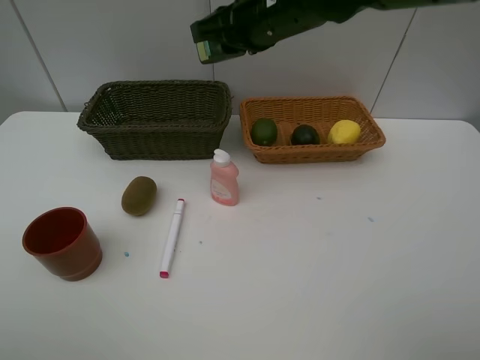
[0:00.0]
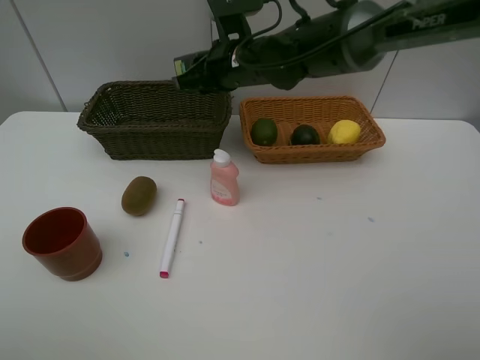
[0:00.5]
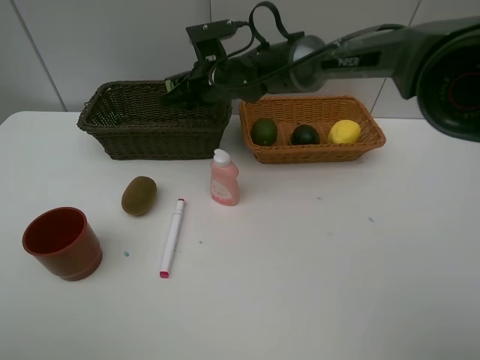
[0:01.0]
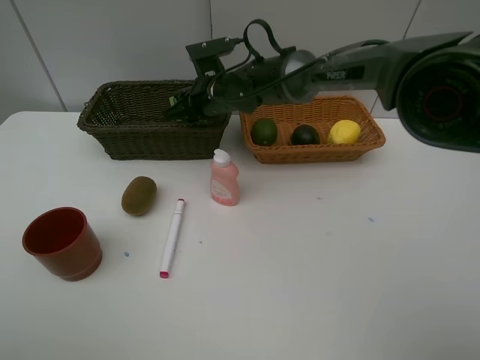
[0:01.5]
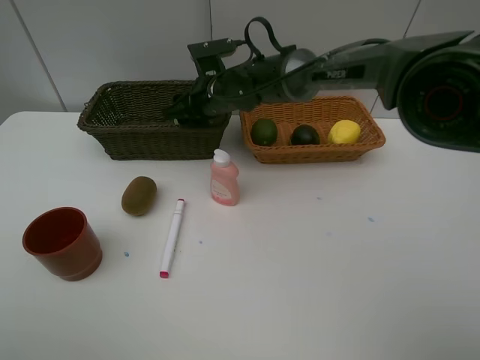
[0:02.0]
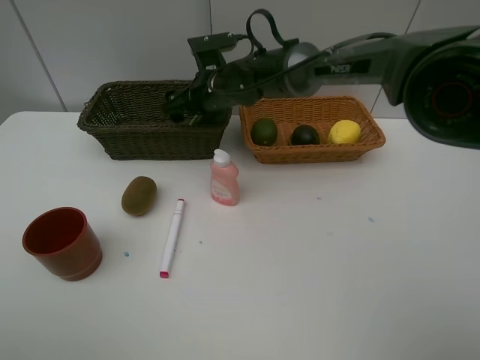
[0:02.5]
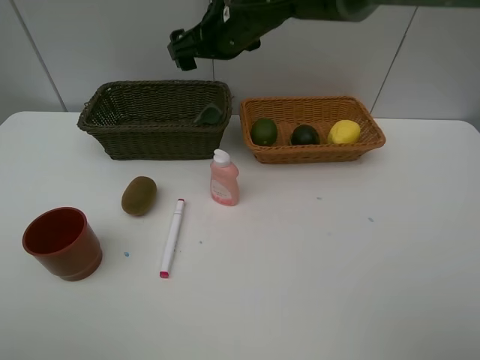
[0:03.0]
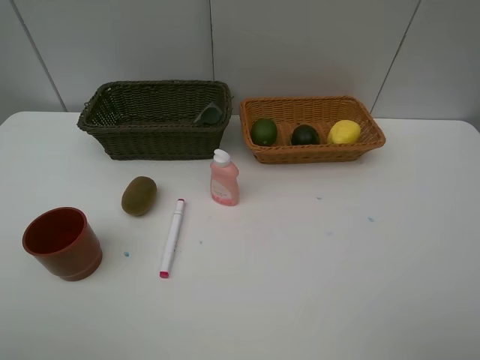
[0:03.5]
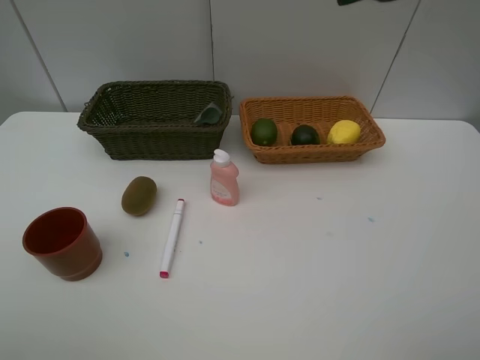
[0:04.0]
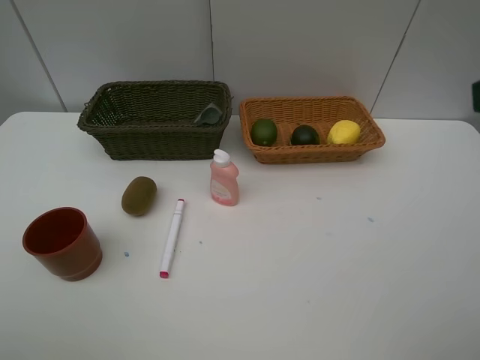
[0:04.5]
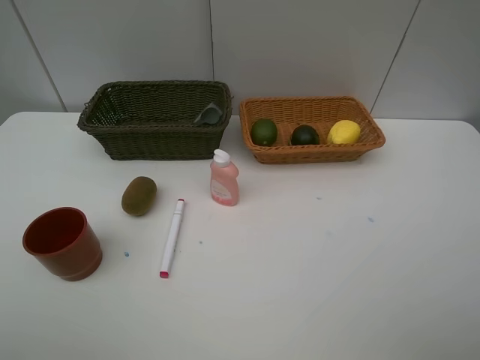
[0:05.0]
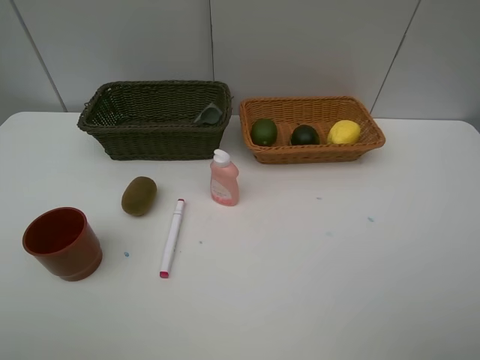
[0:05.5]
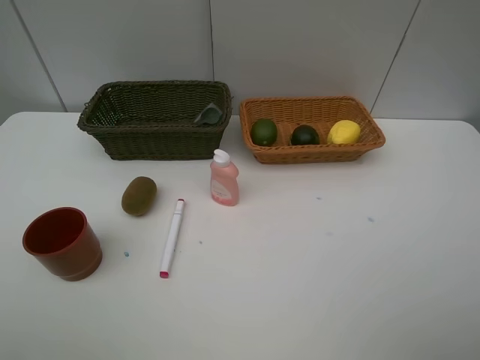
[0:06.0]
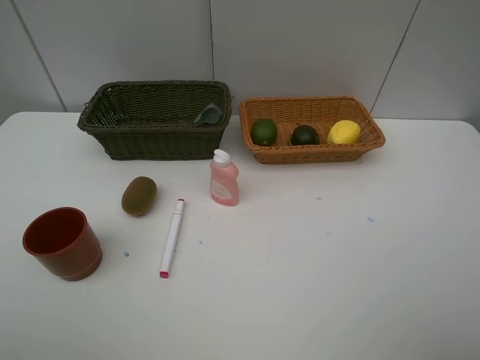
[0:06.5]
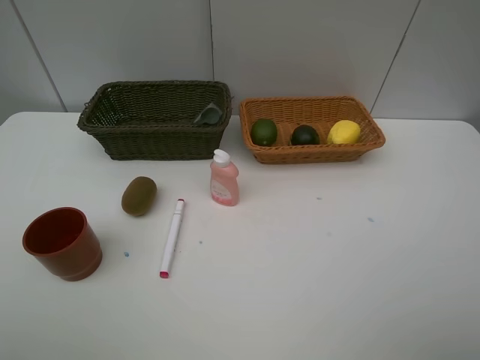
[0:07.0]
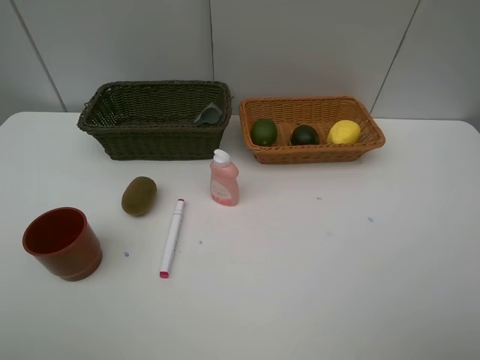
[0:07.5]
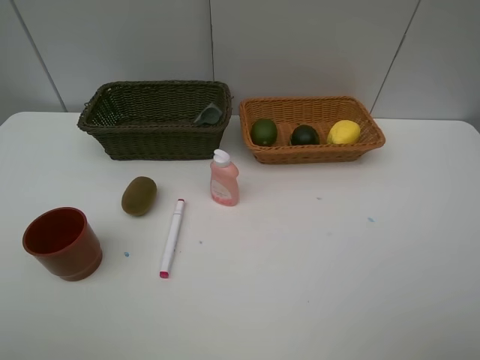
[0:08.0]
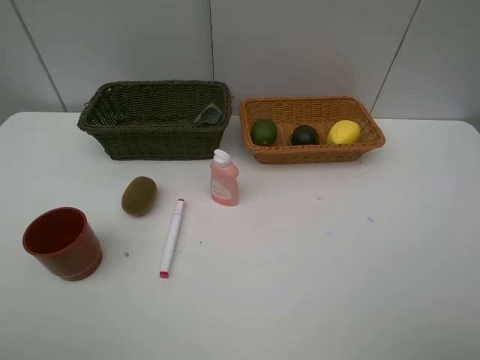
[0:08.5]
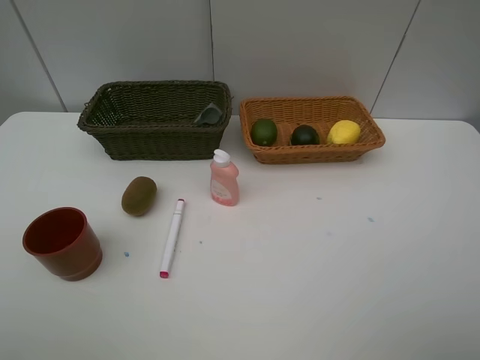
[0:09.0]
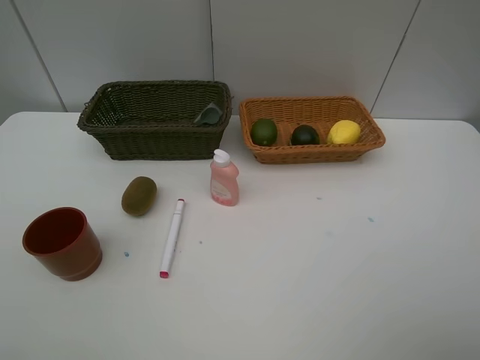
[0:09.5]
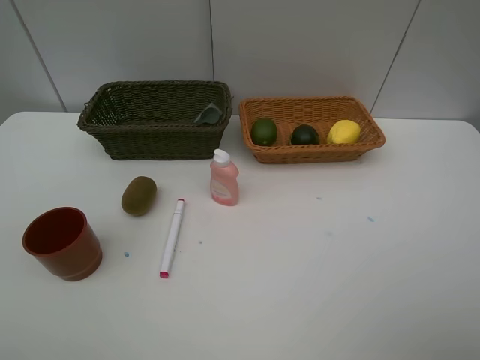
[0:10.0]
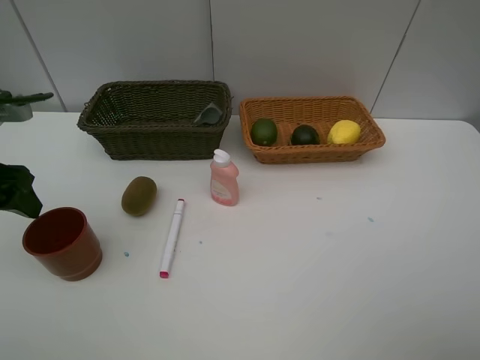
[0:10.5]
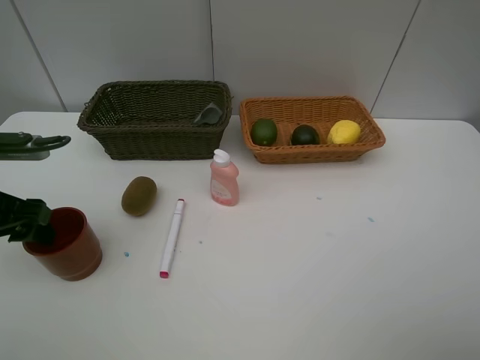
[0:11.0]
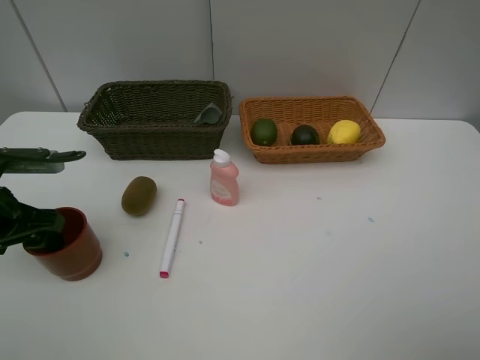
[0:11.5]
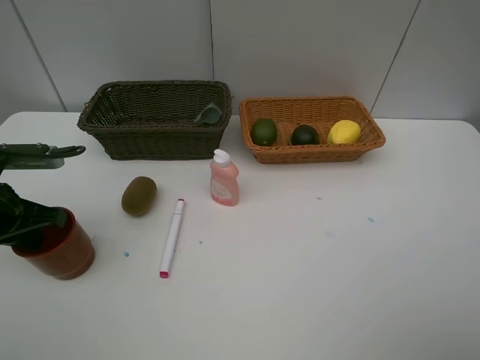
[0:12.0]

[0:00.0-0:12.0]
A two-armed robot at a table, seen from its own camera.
Task of the whole recording: Place multiple objects separately in different baskets.
Step, 0:00.0 to 0:02.5: Place the hard facial cleanser in the dark basket with right gripper.
0:00.0 to 0:02.0: The right gripper moves downward, forward and to the left, roughly 15 cm, and opens up.
0:02.0 to 0:04.0: The right gripper moves upward, backward and to the right, some 40 cm.
0:10.0 to 0:12.0: The left gripper travels downward by approximately 15 cm, and closes up.

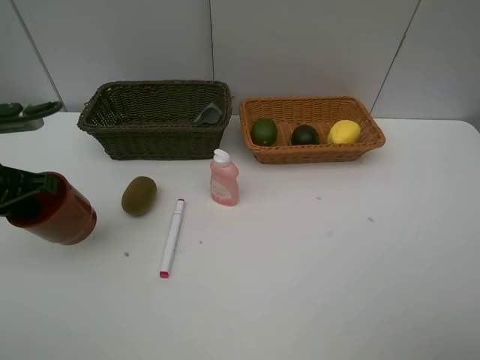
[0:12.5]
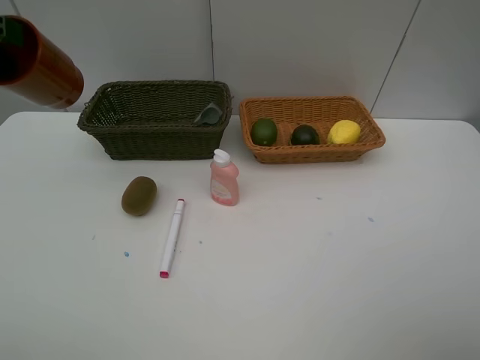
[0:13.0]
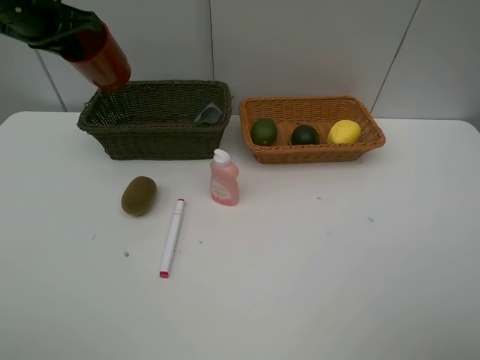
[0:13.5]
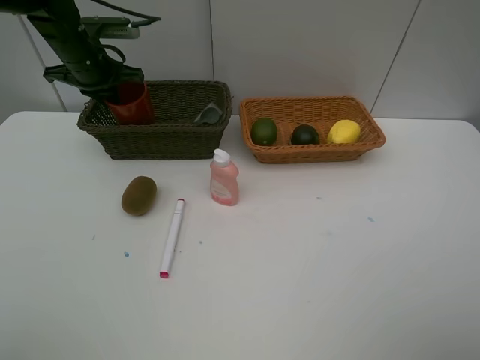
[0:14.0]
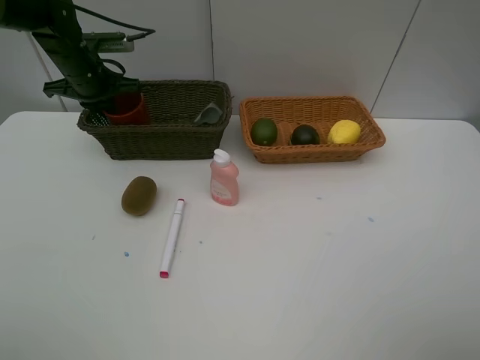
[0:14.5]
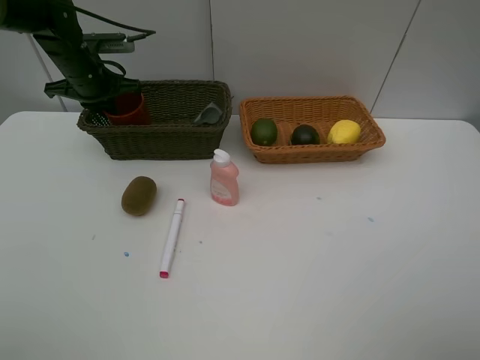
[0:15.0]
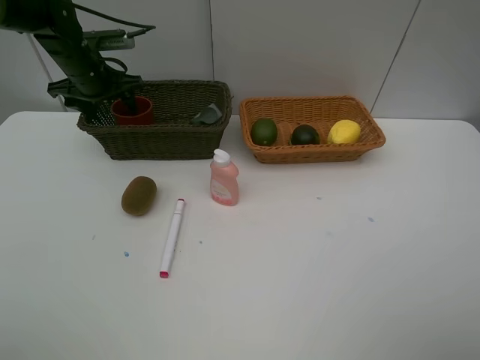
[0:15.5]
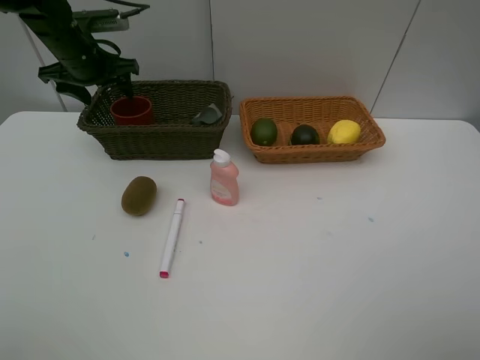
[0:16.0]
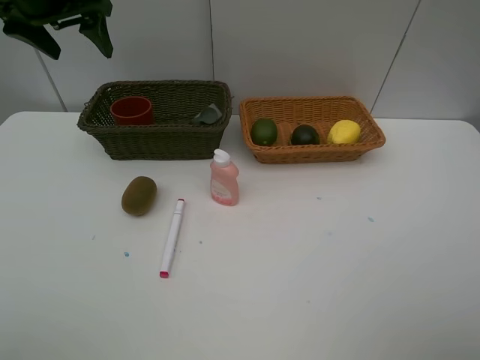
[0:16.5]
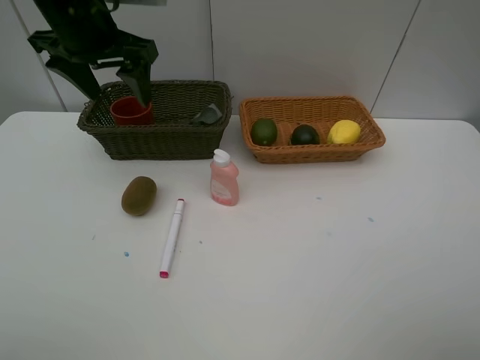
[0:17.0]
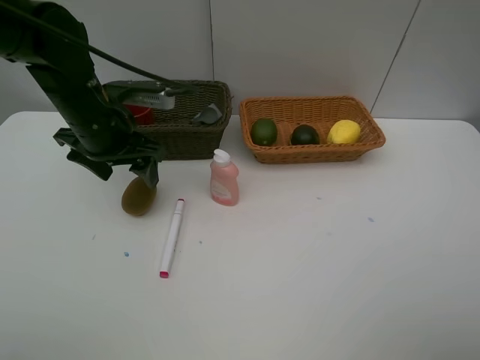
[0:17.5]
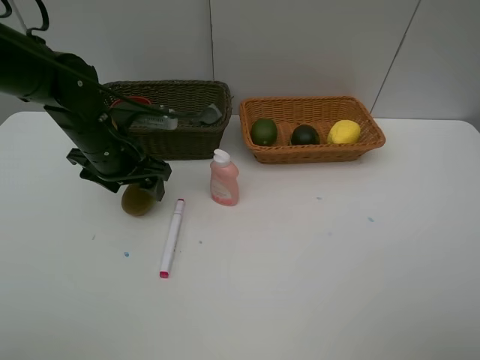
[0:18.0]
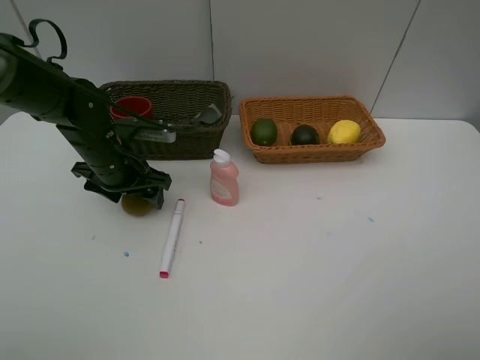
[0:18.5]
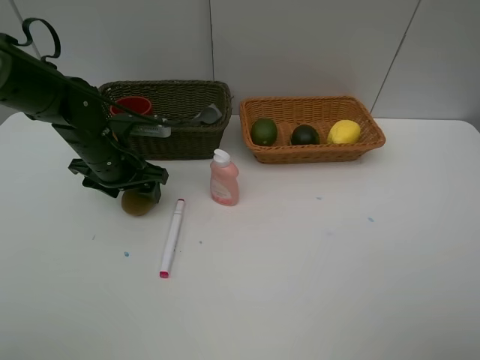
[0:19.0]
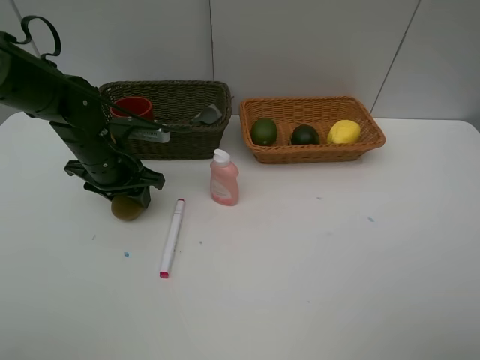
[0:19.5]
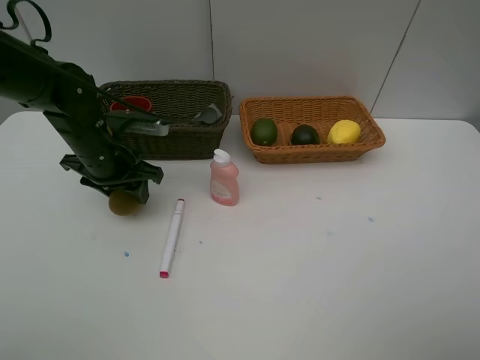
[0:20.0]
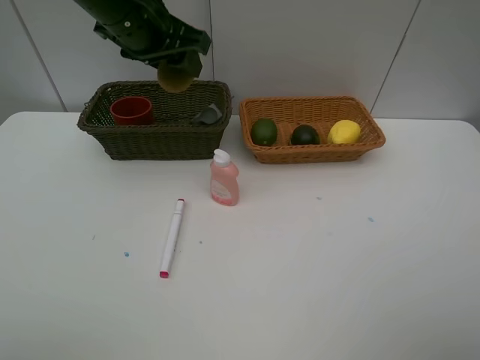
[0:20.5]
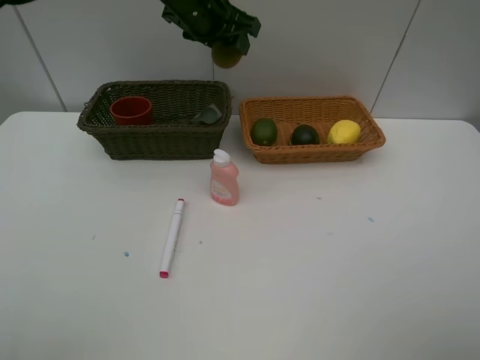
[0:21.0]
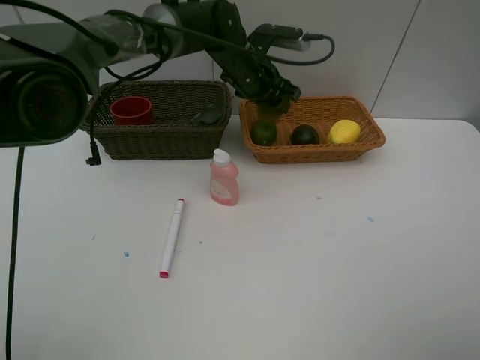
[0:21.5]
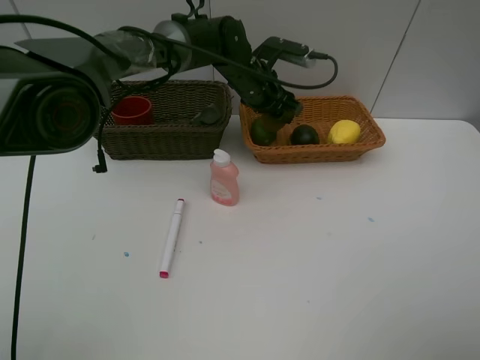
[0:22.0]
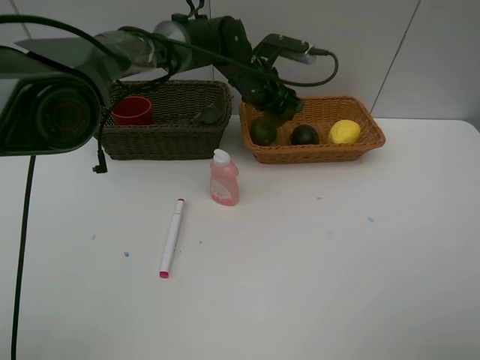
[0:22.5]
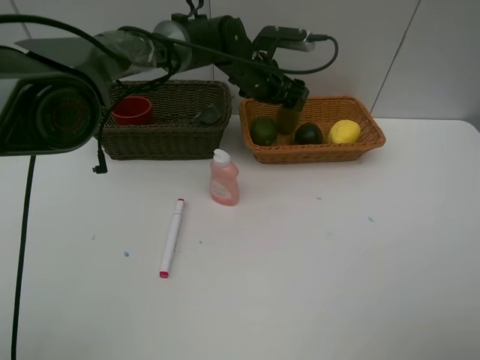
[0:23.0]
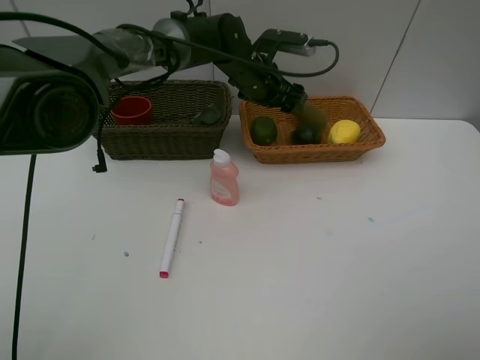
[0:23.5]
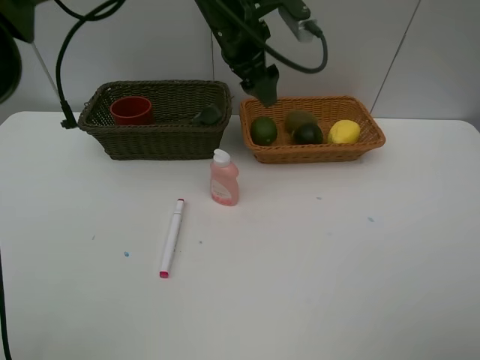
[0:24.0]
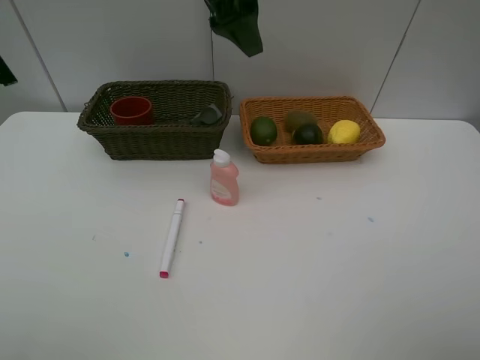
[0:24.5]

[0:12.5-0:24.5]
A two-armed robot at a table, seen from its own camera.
Task of the whole recording: Place multiple objects separately in different baskets.
Step, 0:12.5 to 0:16.0: Place the dark brown cup in the dark basket with left gripper.
Step, 0:16.5 to 0:20.0: Pick up kiwi with left gripper.
Step, 0:20.5 to 0:23.0: Place the kiwi in the light basket with left gripper.
0:12.5 to 0:14.5: The left gripper goes approximately 25 cm forward.
0:14.5 to 0:16.5: The left gripper shifts about 15 cm upward and backward, and opens up.
0:16.5 to 0:18.5: The left gripper heads downward, covering approximately 20 cm.
0:18.5 to 0:20.5: The left gripper heads upward, covering roughly 20 cm.
0:20.5 to 0:22.5: The left gripper is displaced to the right, downward and forward by approximately 20 cm.
0:22.5 to 0:24.5: The left gripper heads upward and backward, covering approximately 20 cm.

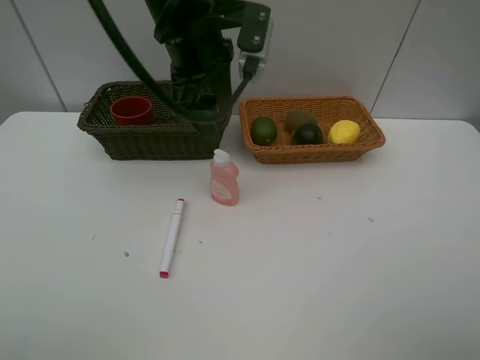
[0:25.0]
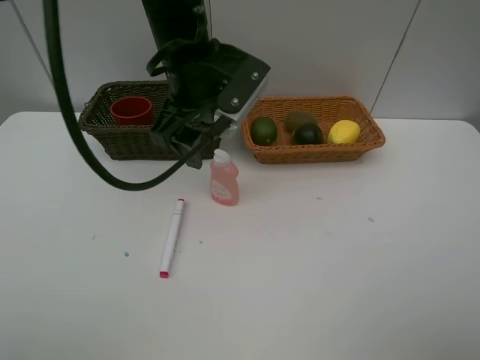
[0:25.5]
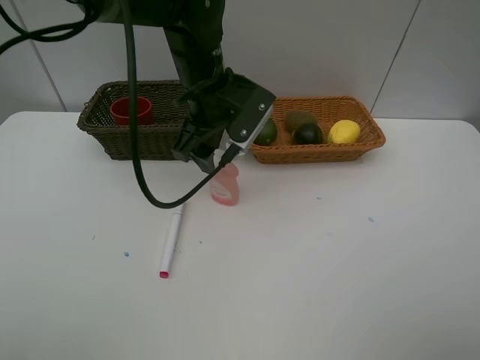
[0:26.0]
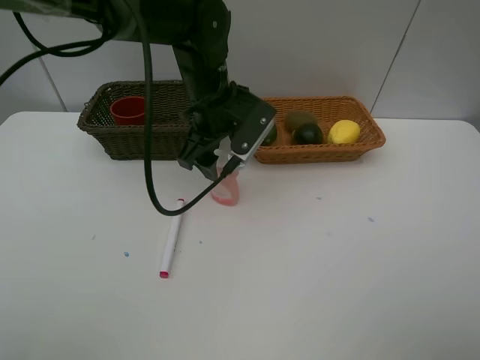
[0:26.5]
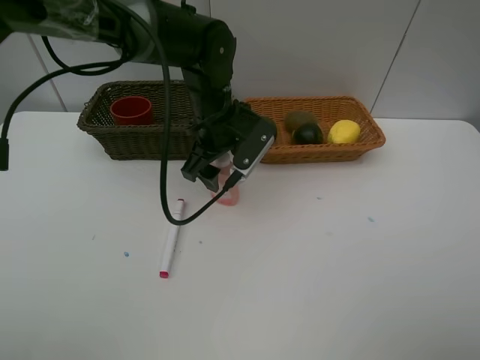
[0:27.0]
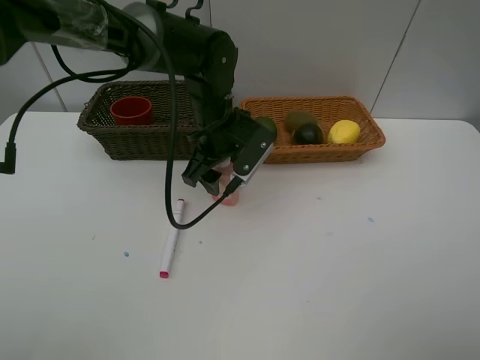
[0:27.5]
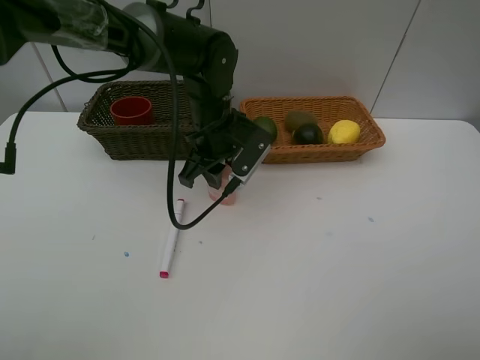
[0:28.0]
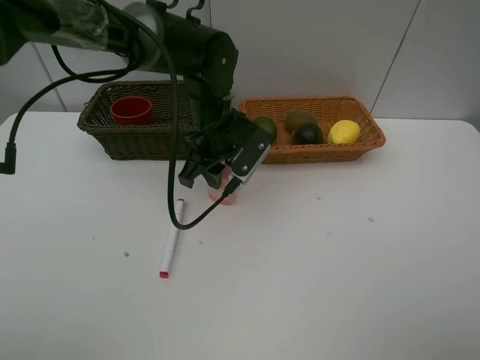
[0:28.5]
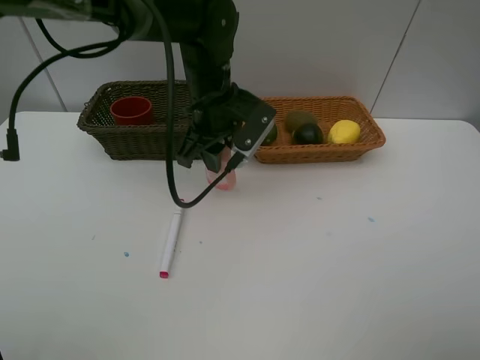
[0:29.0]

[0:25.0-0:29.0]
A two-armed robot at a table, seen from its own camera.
Task of the whole recording: Place multiple objects separately in different baskets.
Step, 0:25.0 to 0:29.0: Pick up the laundry detergent with left gripper.
0:25.0 to 0:27.0: The left gripper shifts some 10 cm downward.
0:27.0 to 0:29.0: The left gripper closes its fingers.
